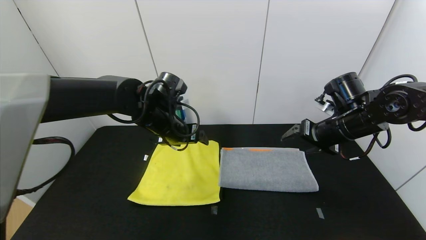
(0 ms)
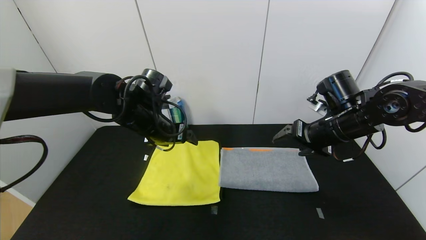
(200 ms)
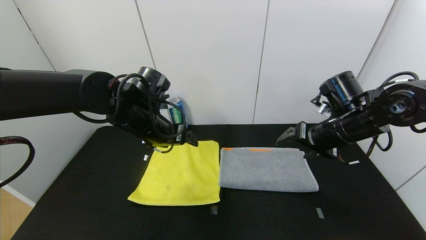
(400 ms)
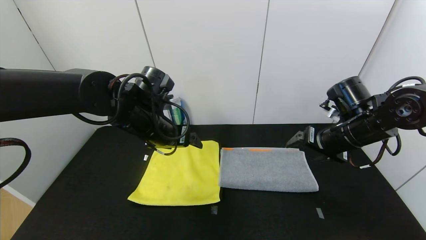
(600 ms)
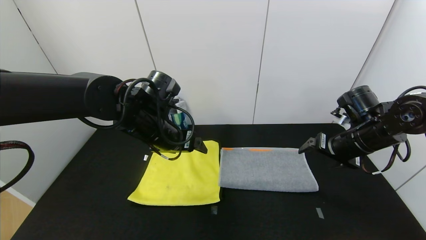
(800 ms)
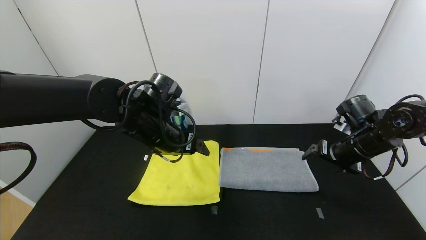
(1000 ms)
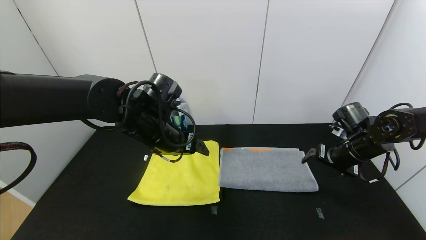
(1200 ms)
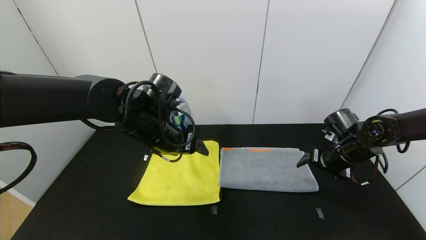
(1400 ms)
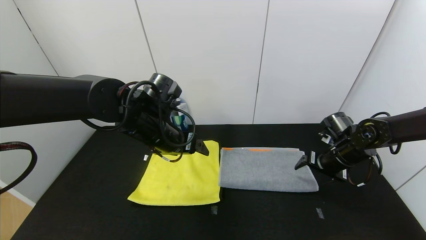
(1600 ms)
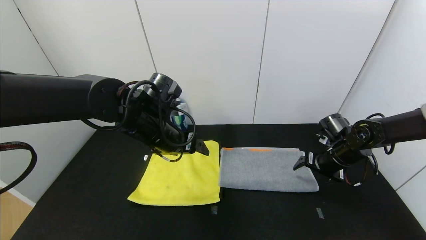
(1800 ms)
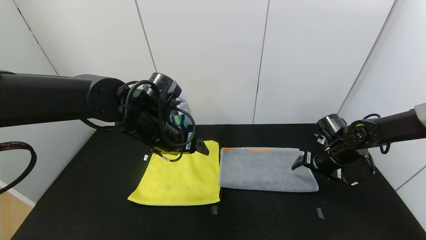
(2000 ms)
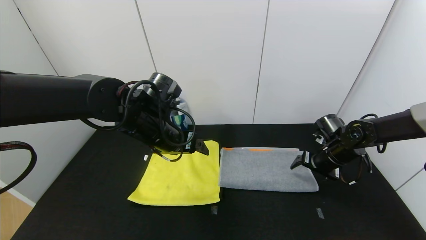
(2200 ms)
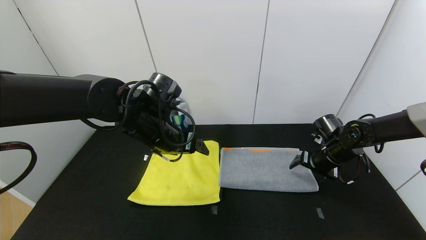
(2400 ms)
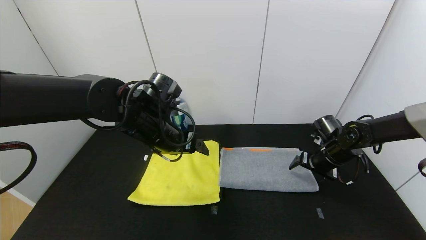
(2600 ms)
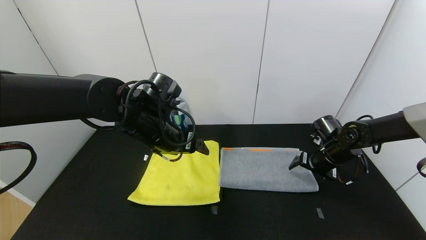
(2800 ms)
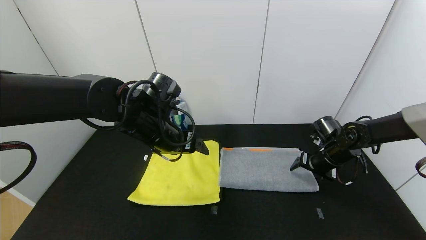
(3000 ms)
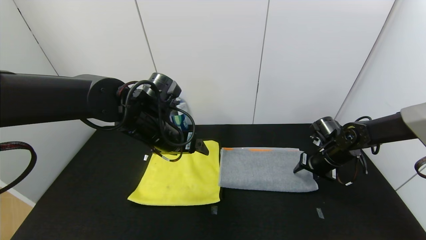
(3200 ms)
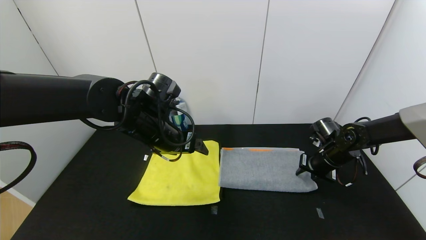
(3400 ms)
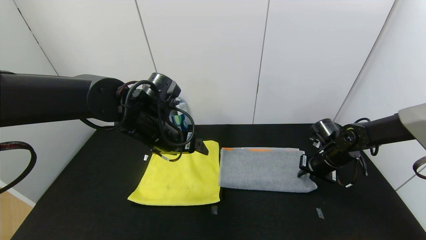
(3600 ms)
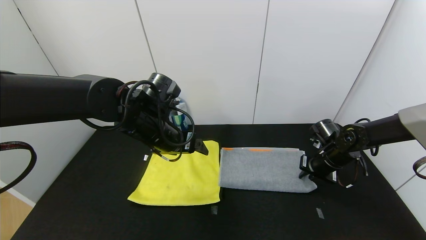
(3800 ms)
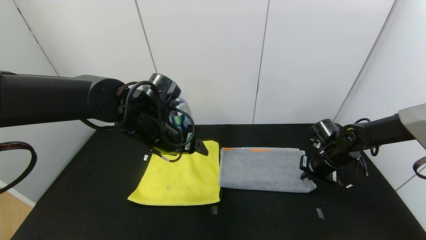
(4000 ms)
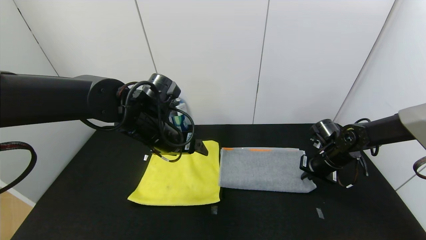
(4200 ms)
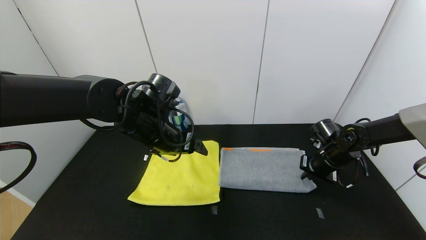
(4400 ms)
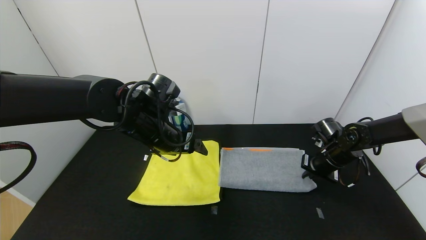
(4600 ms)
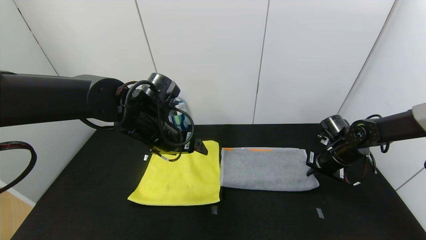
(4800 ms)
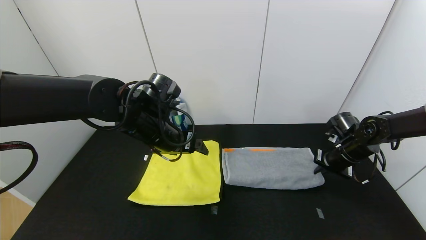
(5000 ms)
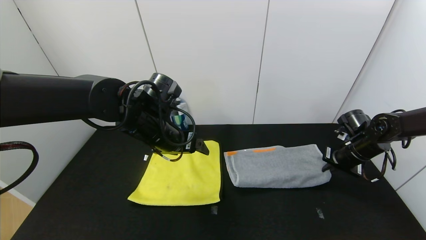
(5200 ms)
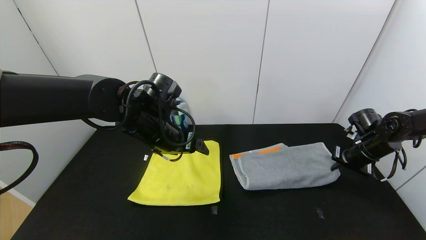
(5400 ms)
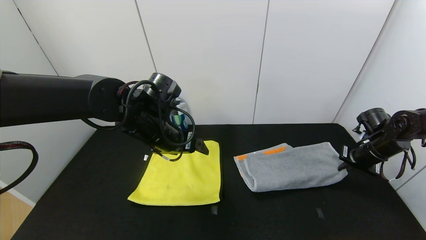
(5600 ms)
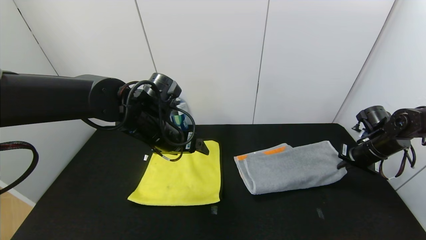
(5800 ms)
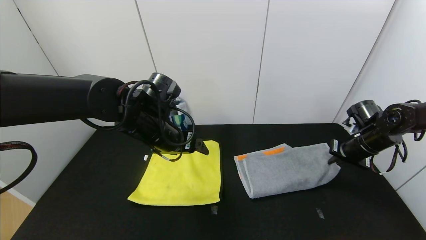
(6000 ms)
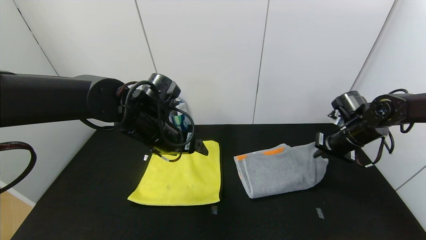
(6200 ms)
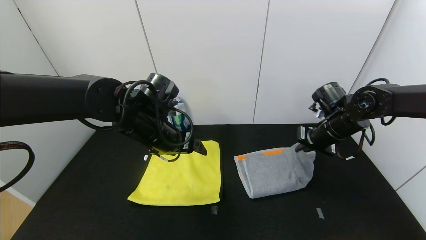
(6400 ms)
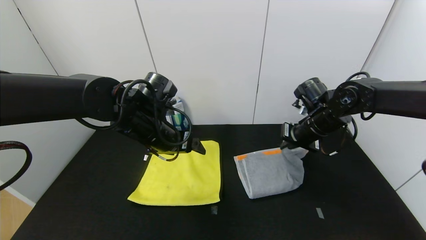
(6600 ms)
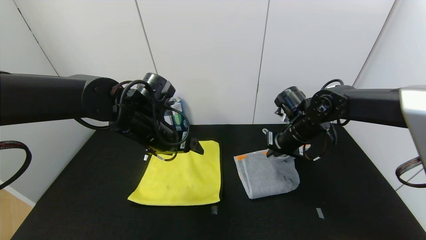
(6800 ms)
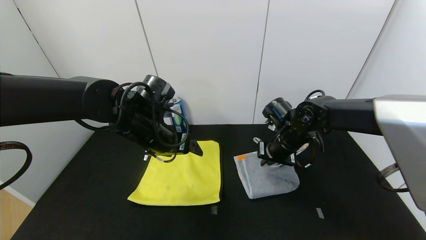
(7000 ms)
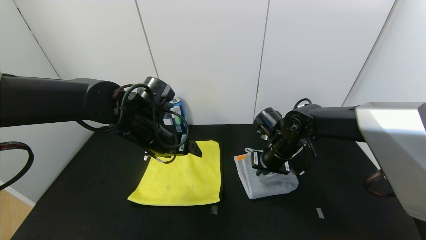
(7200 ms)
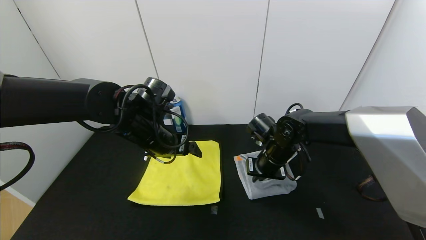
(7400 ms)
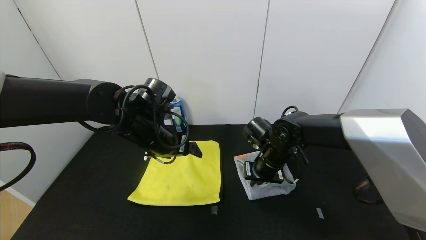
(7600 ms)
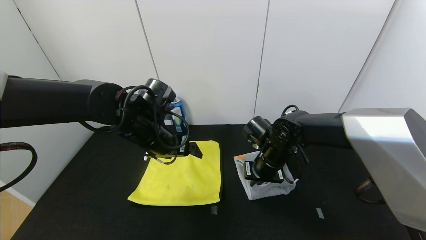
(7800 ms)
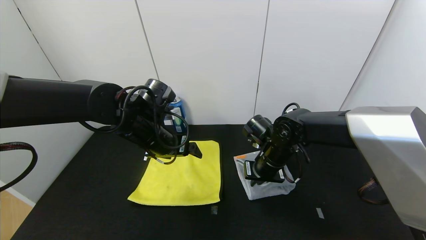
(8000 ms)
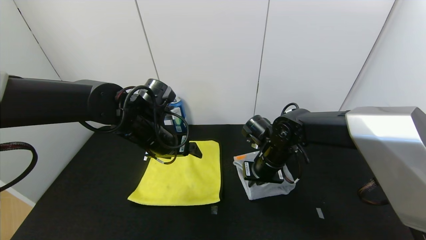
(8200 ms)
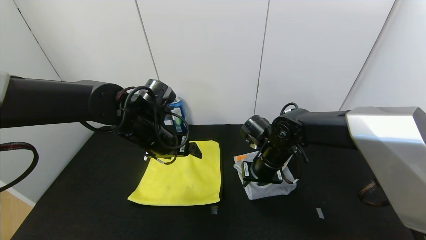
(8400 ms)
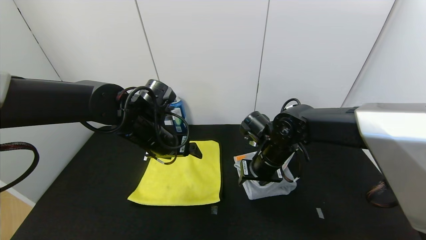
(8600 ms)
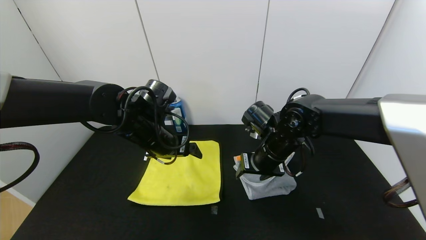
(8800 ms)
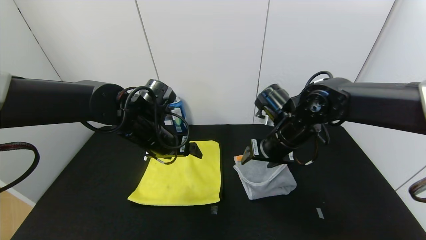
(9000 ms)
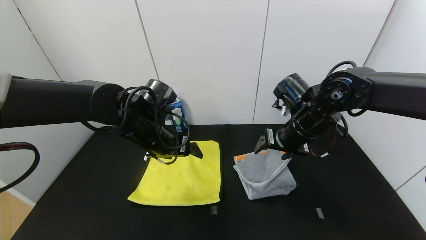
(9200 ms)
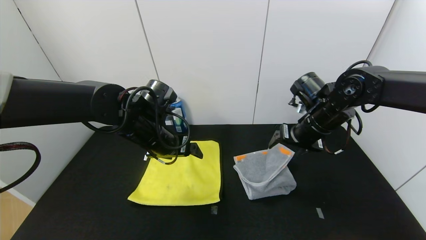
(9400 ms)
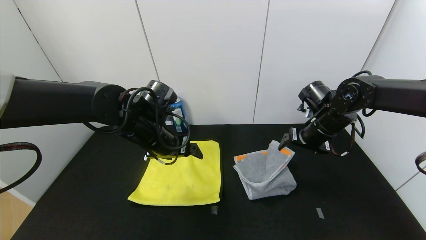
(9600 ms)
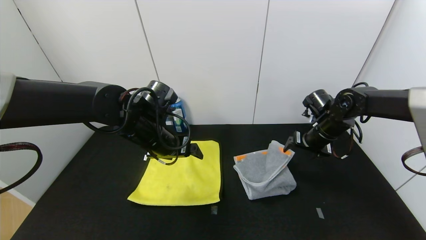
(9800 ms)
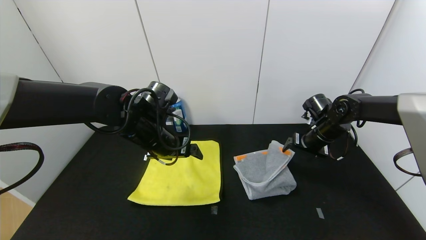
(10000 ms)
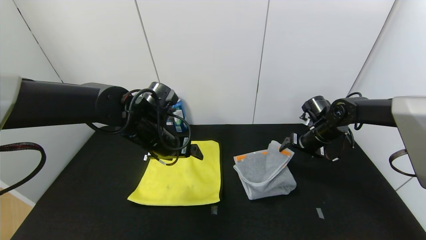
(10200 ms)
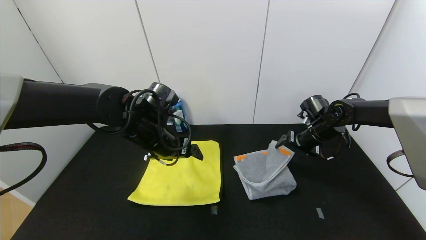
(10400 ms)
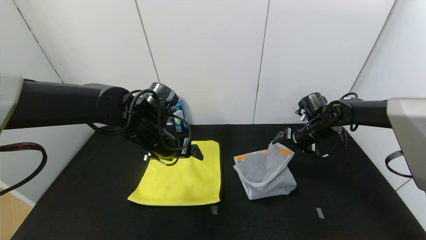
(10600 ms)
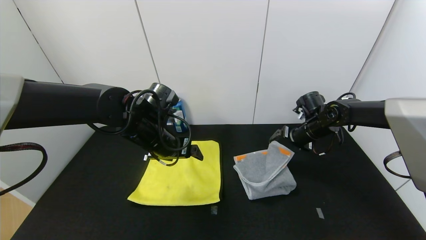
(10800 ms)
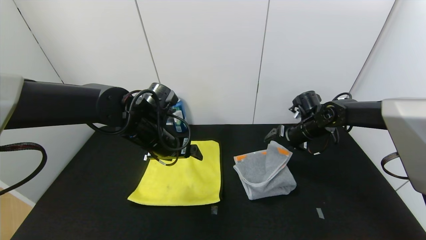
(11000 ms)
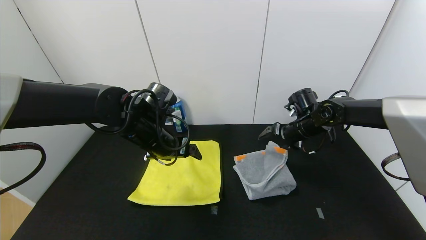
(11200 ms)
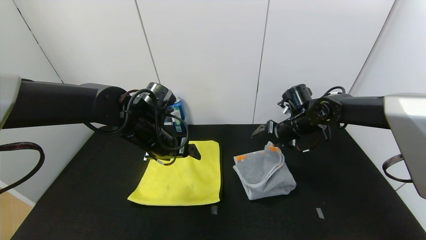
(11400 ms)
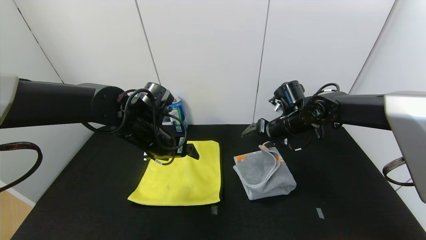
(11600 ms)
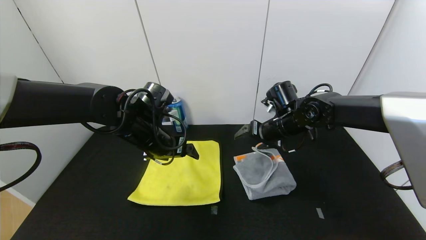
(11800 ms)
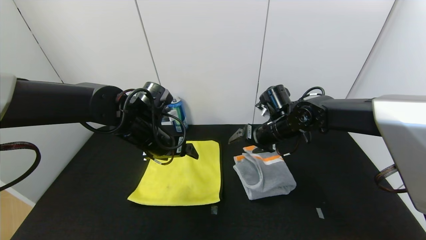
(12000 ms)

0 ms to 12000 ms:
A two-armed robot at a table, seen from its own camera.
Task of the whole recording: Use the gripper to fold the yellow towel and grey towel in half twice,then put the yellow towel on the grey towel.
0 ms to 1600 ms: The right gripper is displaced downward by about 10 cm.
1600 ms to 3000 ms: The grippers move only a little.
3000 ms to 4400 ms: The right gripper closes.
4400 ms to 6000 ms: The right gripper goes approximately 10 cm to the right and upward.
6000 ms to 7600 ms: The right gripper goes approximately 25 cm to the left.
7600 ms to 9000 ms: The right gripper is displaced upward by approximately 10 cm, and opens.
9000 ms to 10400 ms: The right gripper travels to the right, forward and downward by some 20 cm.
10400 ms to 12000 ms: The right gripper moves to the left, roughly 15 cm.

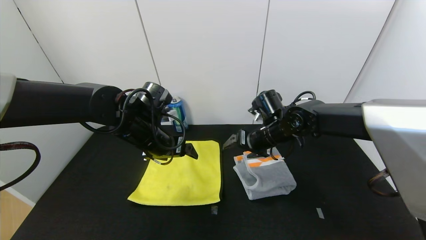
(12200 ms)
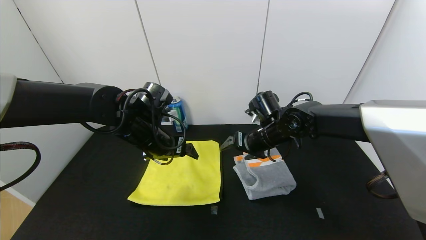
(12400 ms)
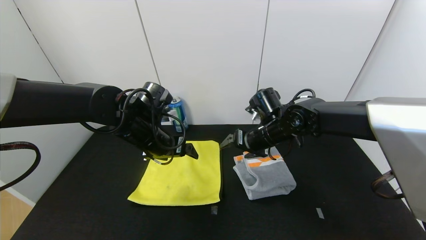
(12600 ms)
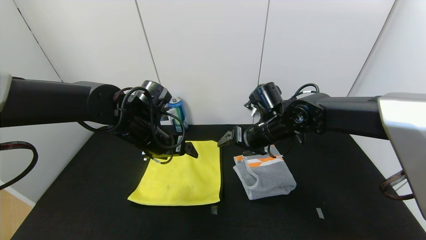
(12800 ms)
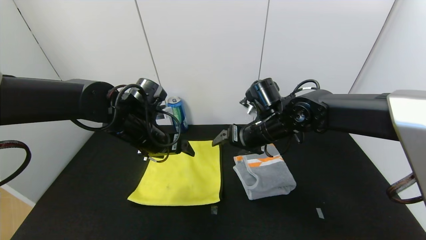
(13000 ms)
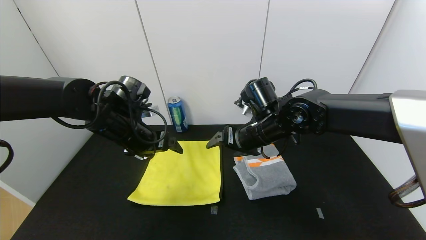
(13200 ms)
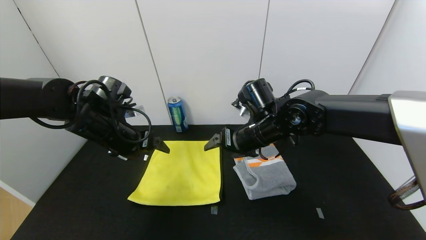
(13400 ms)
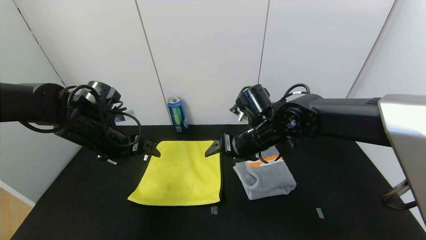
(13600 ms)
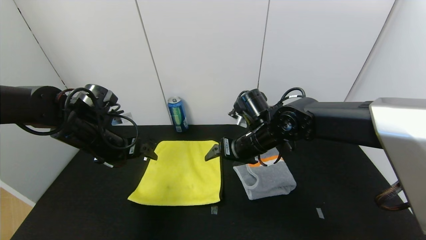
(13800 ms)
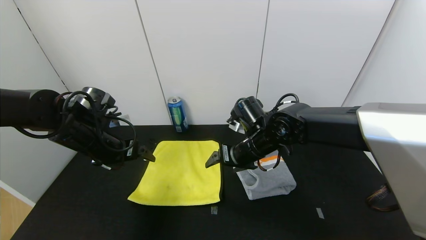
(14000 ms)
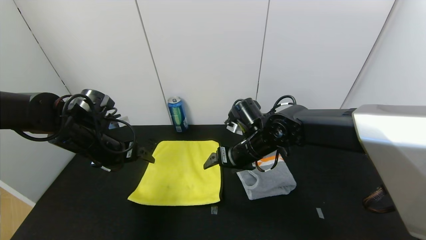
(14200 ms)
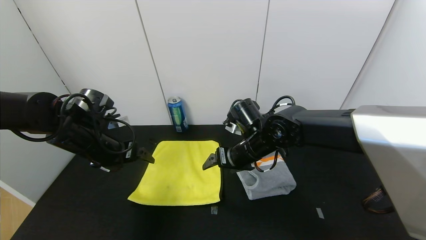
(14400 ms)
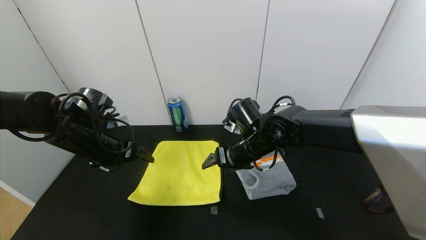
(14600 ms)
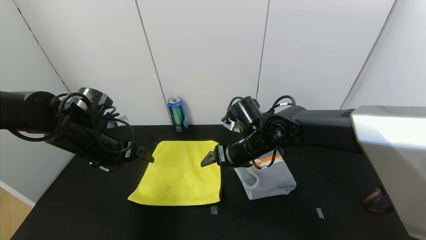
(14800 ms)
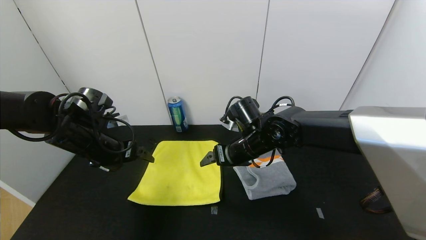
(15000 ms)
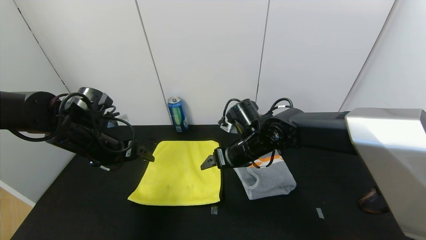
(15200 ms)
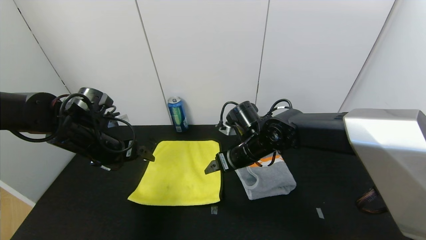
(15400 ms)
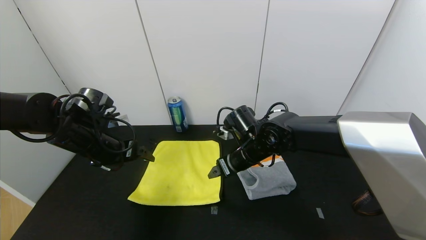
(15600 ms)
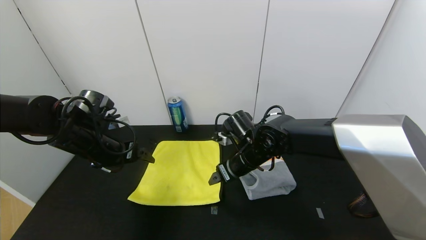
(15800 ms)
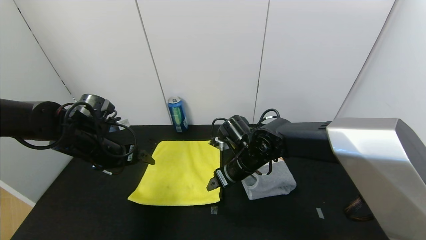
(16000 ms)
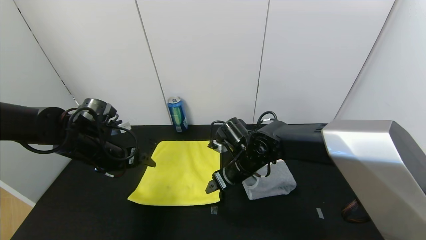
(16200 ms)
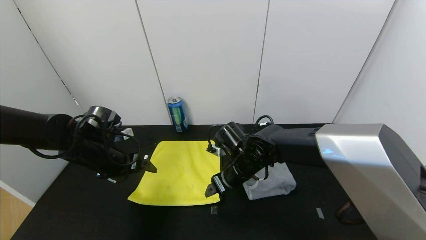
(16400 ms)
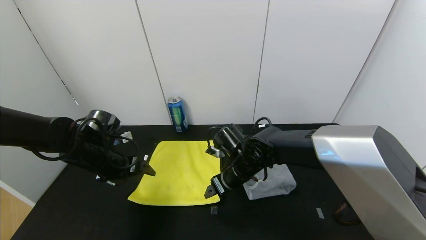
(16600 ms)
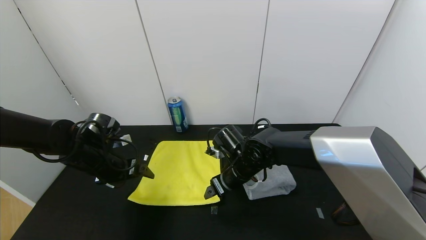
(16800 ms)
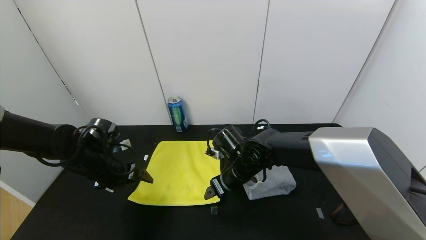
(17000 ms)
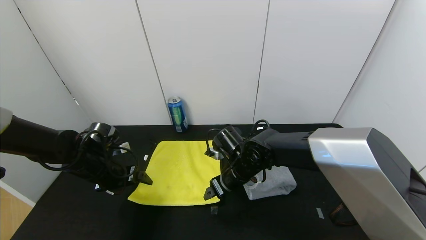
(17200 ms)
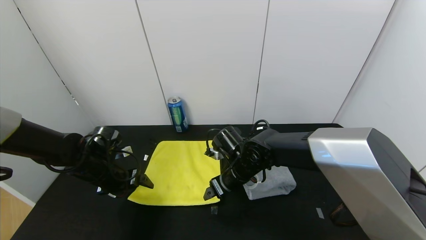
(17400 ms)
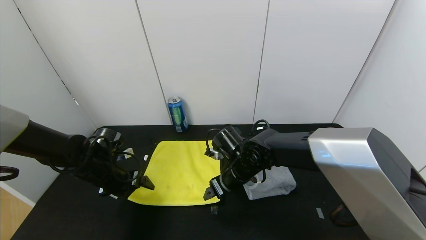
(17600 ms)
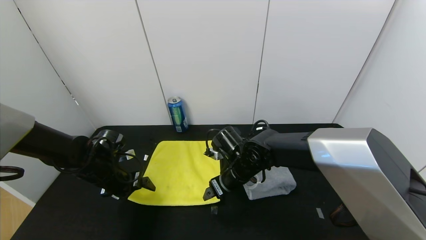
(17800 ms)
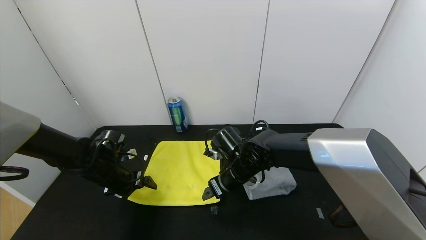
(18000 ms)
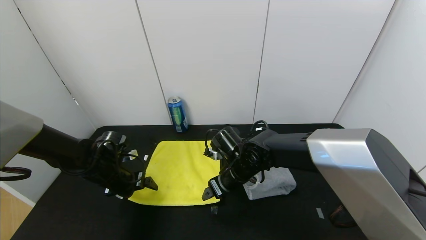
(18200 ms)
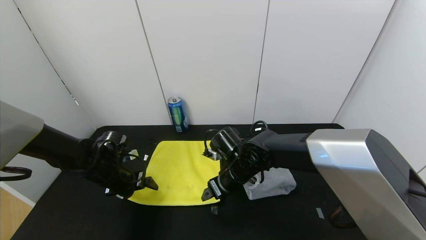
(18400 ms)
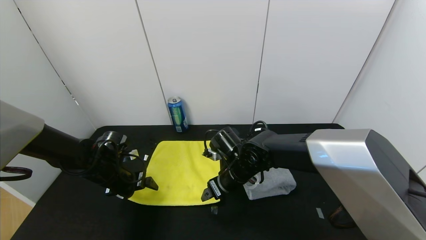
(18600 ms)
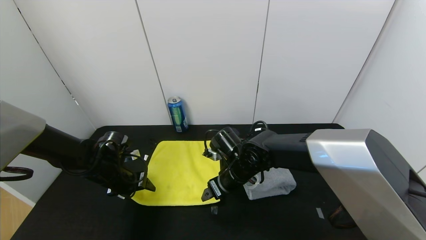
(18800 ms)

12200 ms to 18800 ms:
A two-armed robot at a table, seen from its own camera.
Task of the whole recording: Use the gripper to fold the yellow towel and grey towel in half twice,then put the yellow towel on the grey towel.
12200 ms to 13800 ms: The right gripper shifts by some 5 cm. Meanwhile the left gripper goes some 10 cm to the left.
13800 ms to 15400 ms: There are only small adjustments of the grippers.
15400 ms to 17200 ms: The left gripper shifts some 10 cm downward; the right gripper is displaced downward by approximately 5 cm.
17200 ms to 18800 ms: The left gripper closes.
